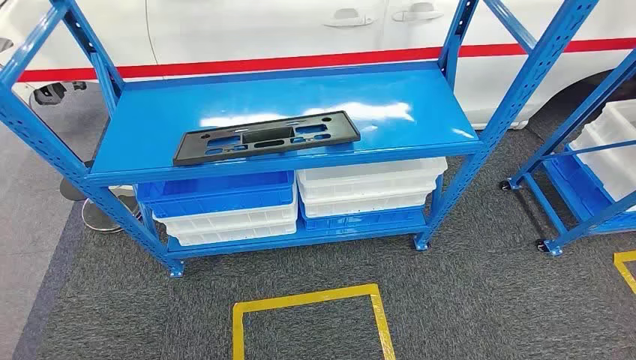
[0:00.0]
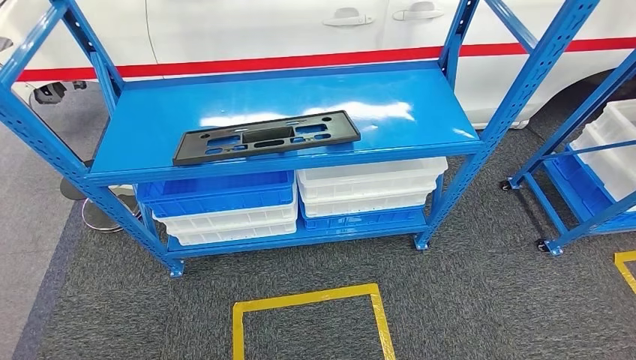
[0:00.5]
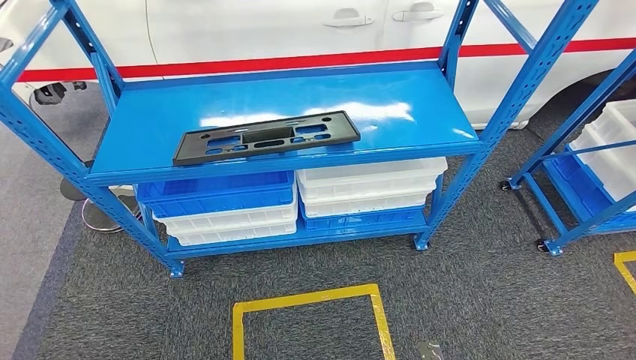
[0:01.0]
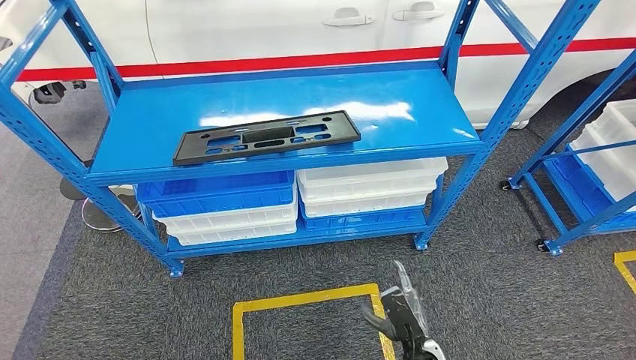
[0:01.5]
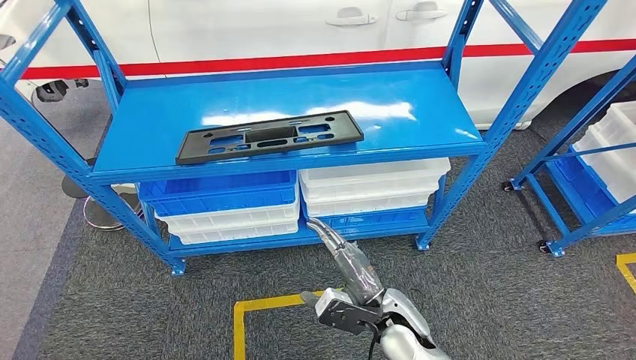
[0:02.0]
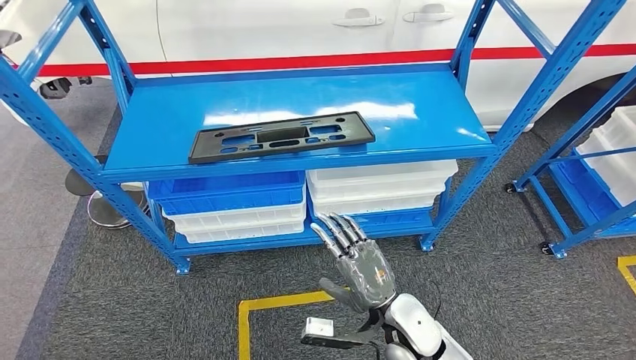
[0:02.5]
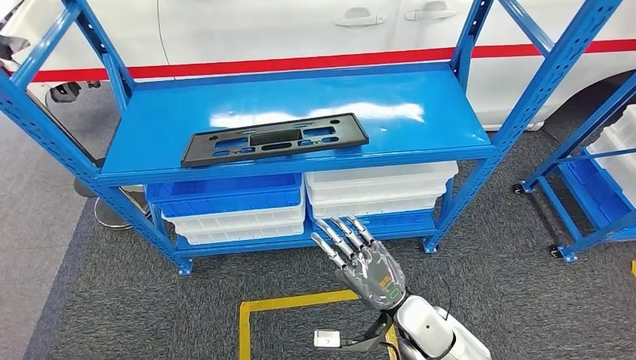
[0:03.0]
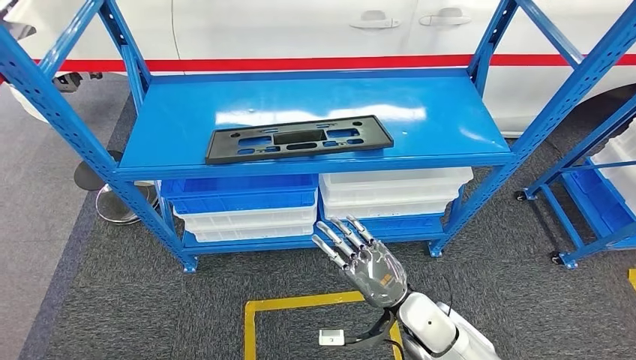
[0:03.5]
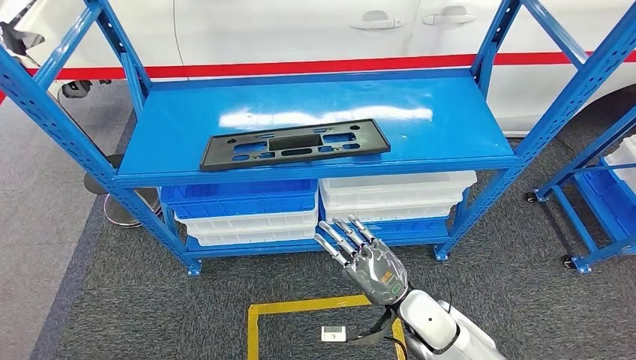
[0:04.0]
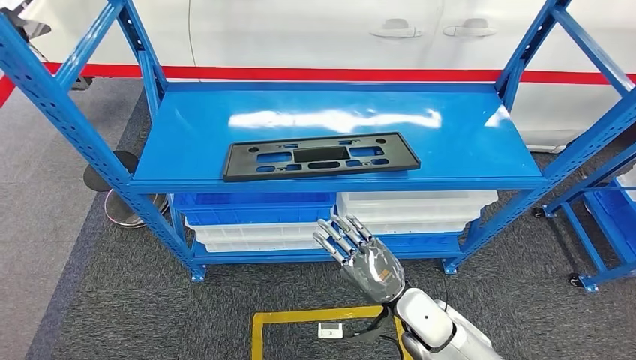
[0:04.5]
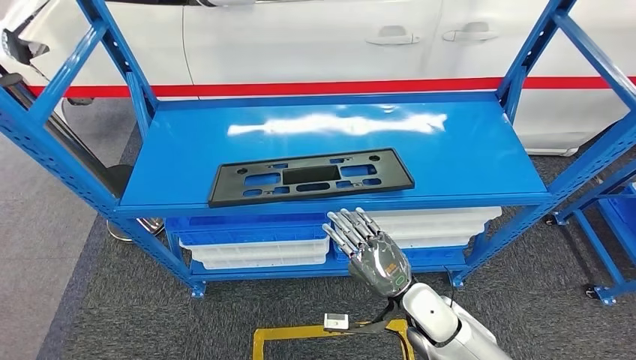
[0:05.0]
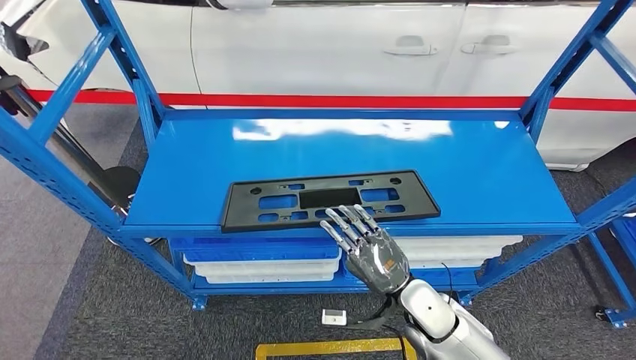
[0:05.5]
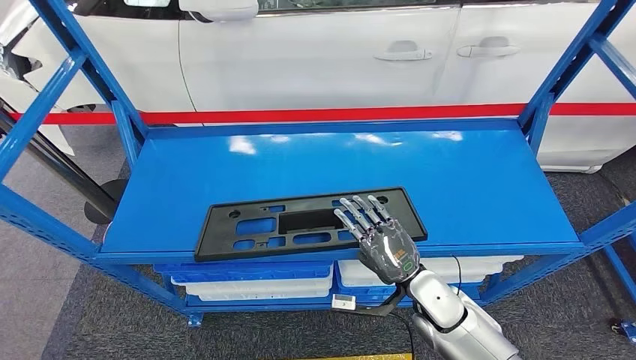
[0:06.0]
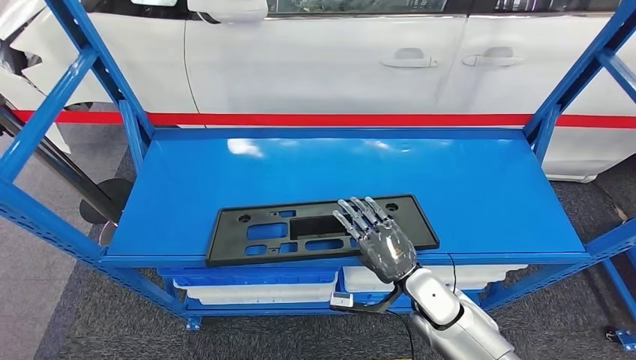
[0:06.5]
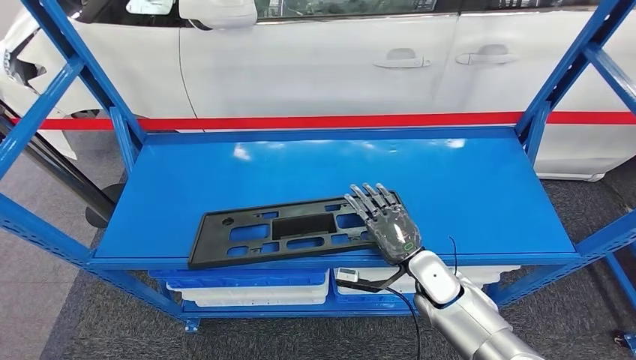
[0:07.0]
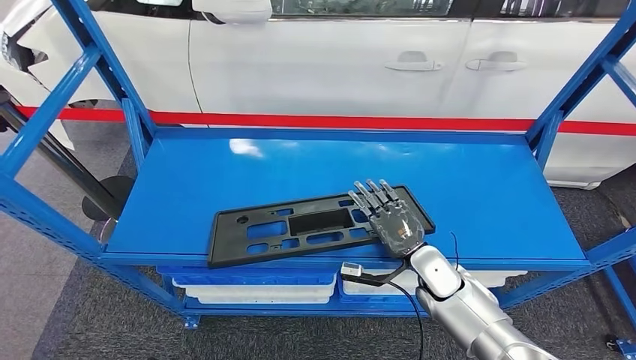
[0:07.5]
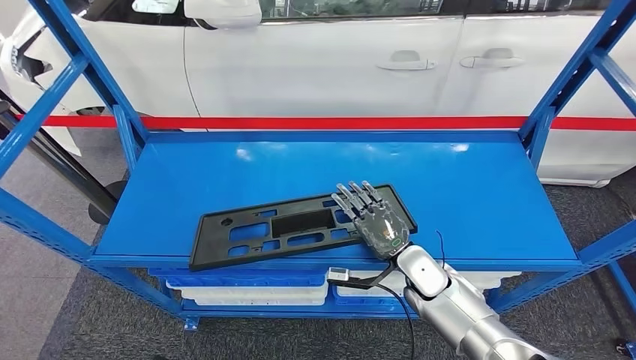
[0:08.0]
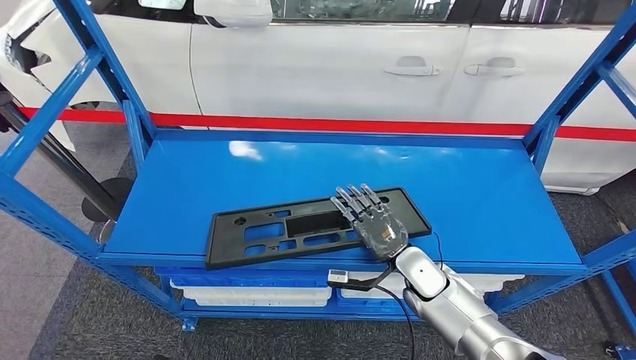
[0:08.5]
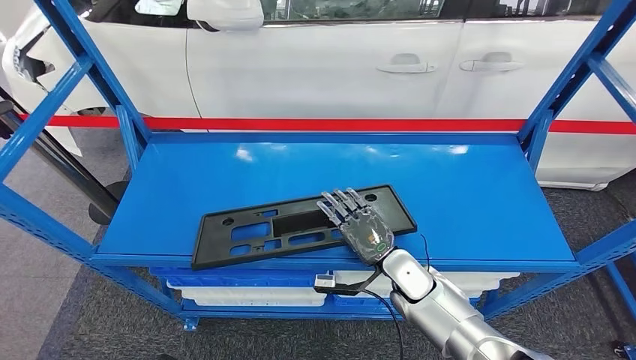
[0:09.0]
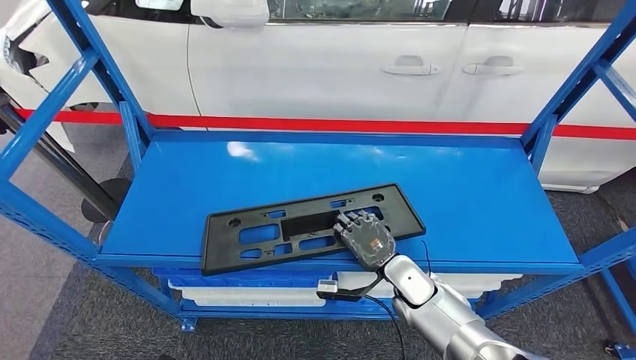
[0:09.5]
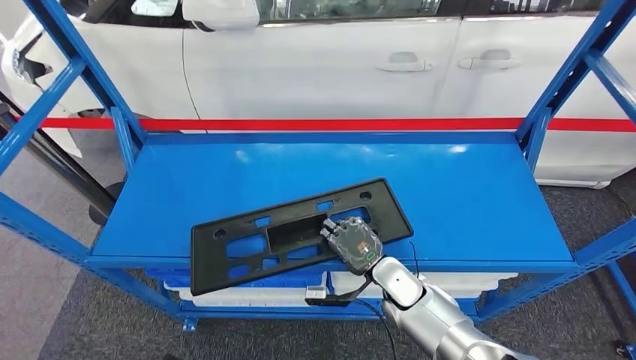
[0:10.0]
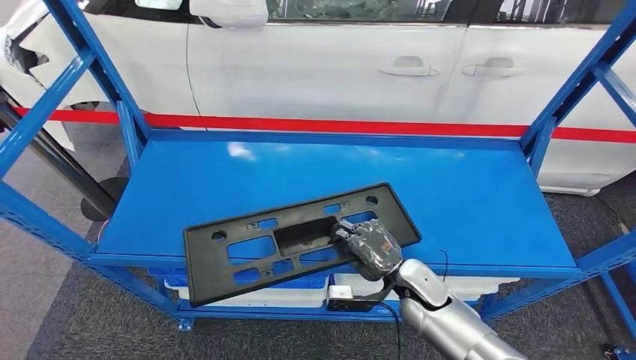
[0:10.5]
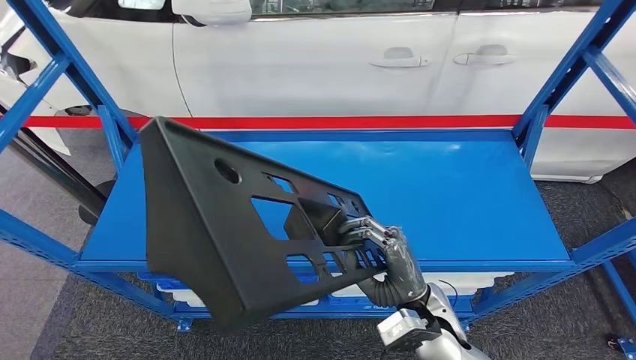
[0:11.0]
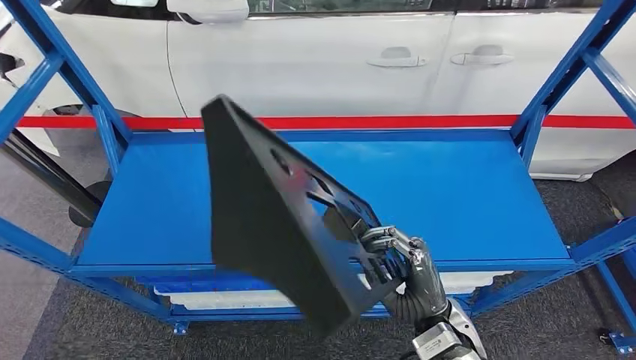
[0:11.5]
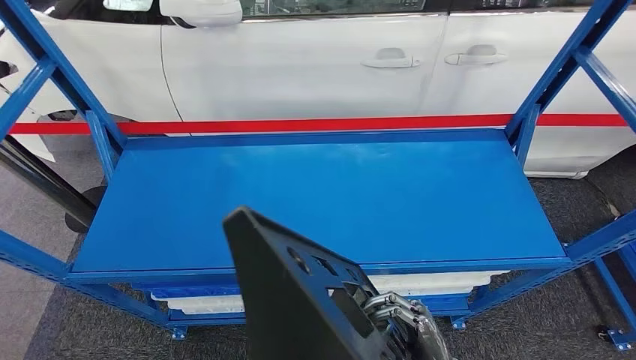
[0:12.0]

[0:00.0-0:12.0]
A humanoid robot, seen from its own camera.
Step, 0:00.0 to 0:11.5: Pick up the large material from the shelf.
0:08.0 to 0:10.0: There are only small adjustments of the hands.

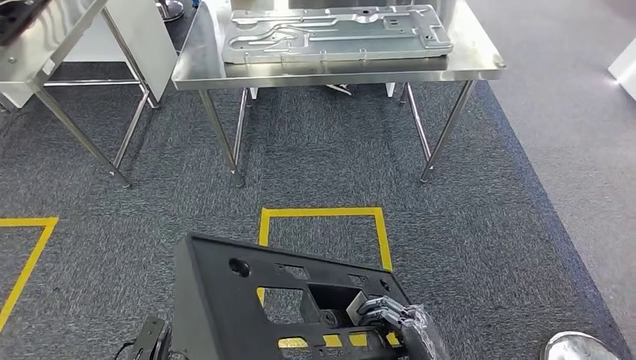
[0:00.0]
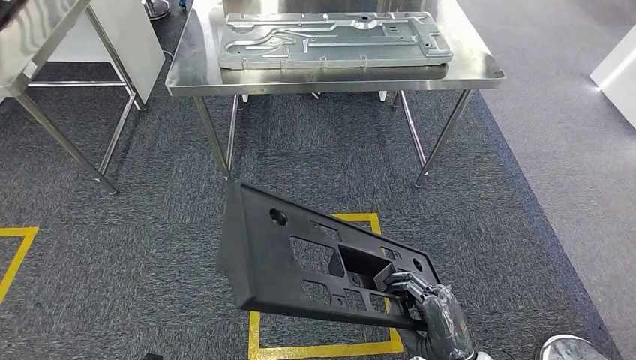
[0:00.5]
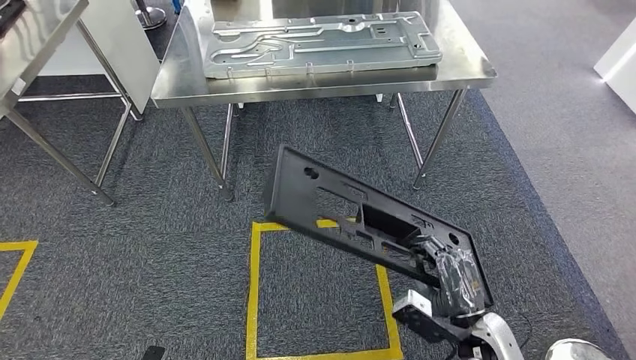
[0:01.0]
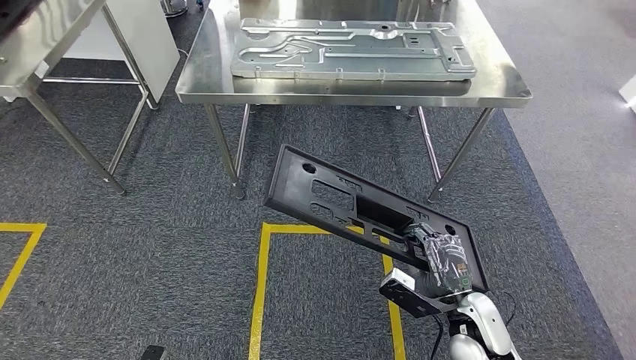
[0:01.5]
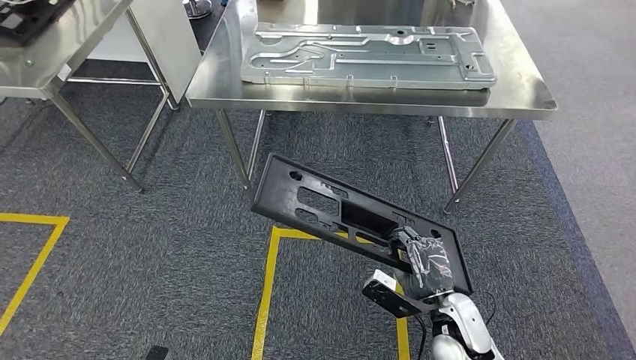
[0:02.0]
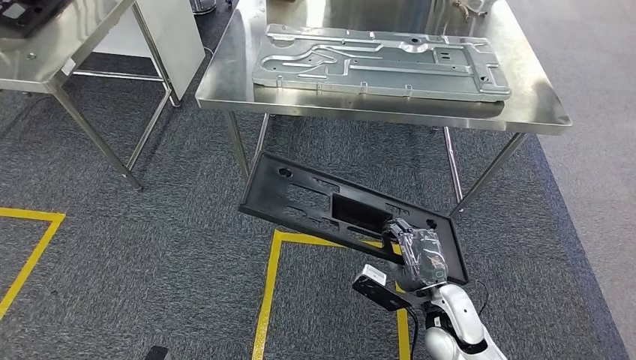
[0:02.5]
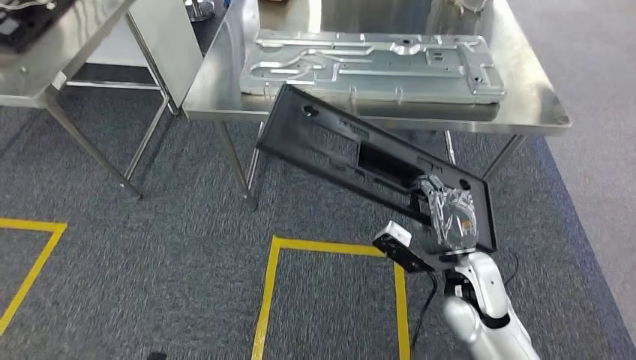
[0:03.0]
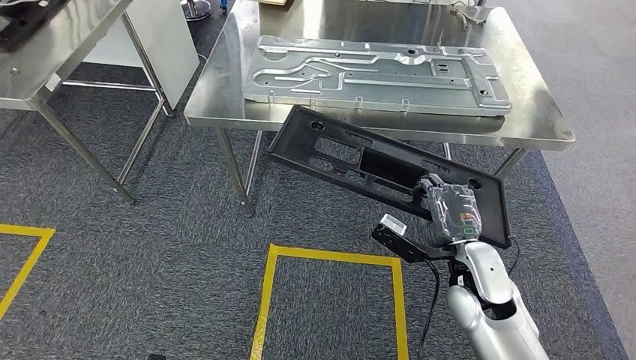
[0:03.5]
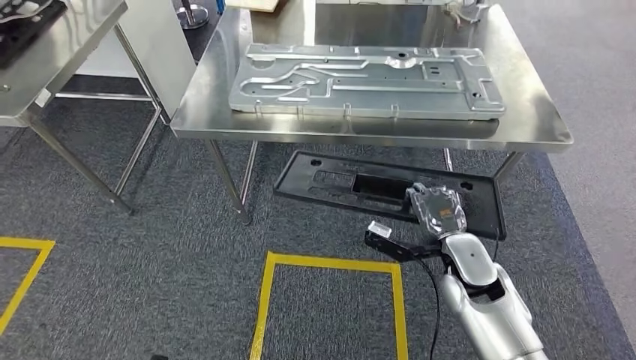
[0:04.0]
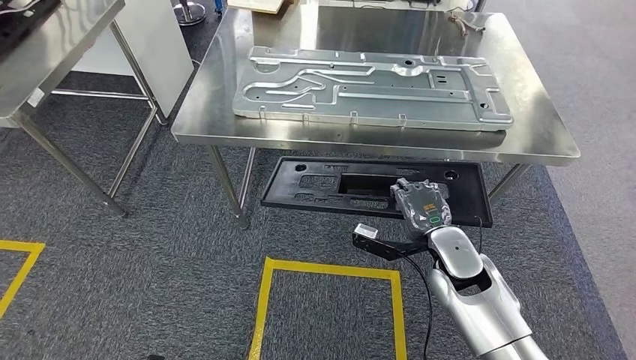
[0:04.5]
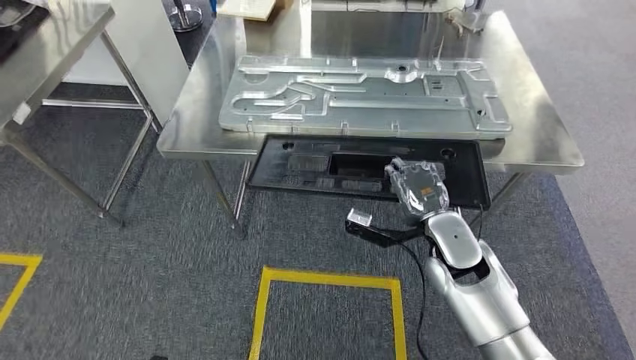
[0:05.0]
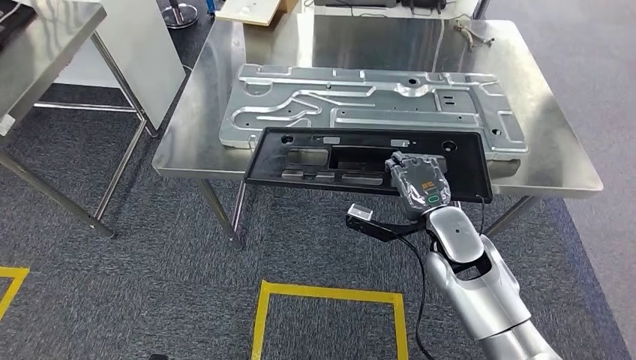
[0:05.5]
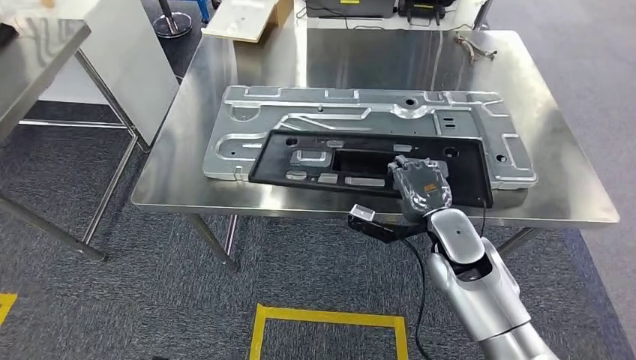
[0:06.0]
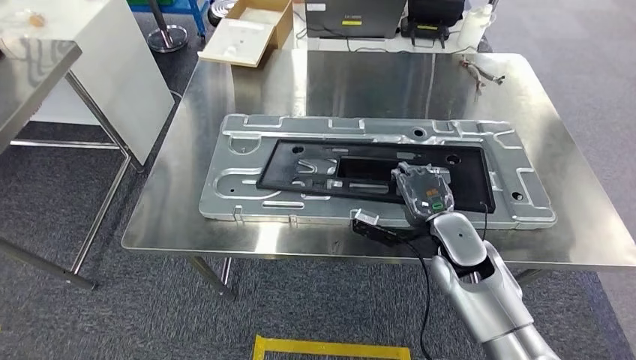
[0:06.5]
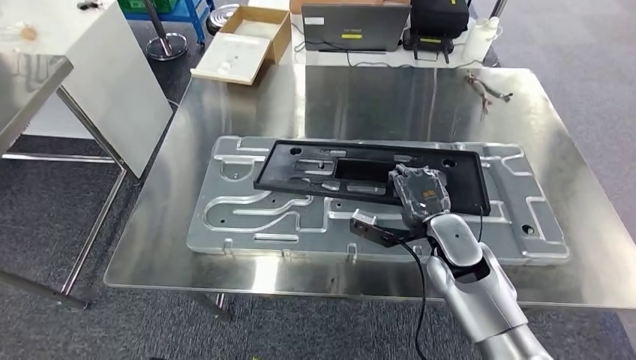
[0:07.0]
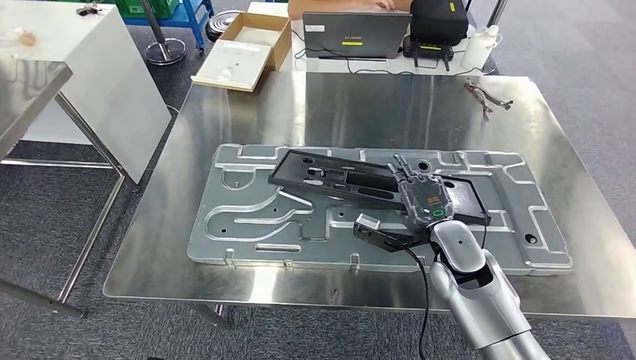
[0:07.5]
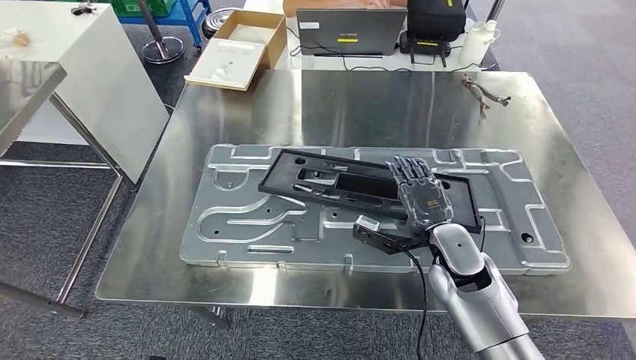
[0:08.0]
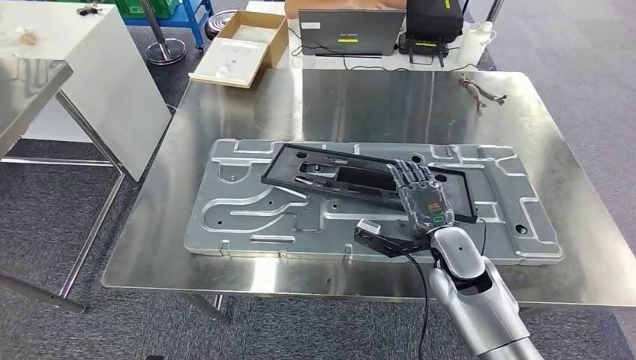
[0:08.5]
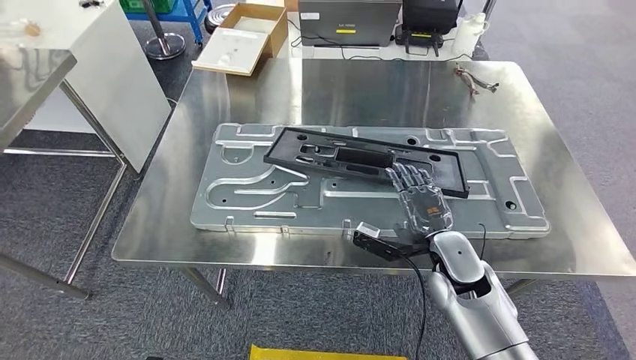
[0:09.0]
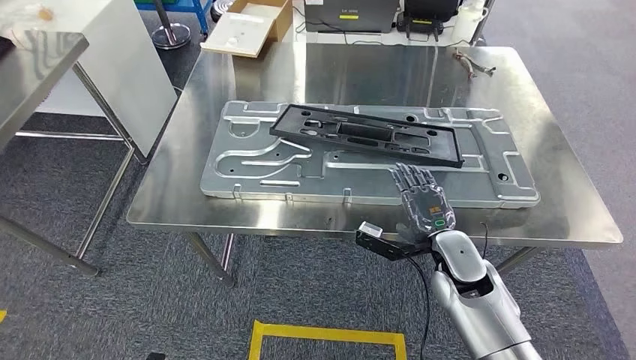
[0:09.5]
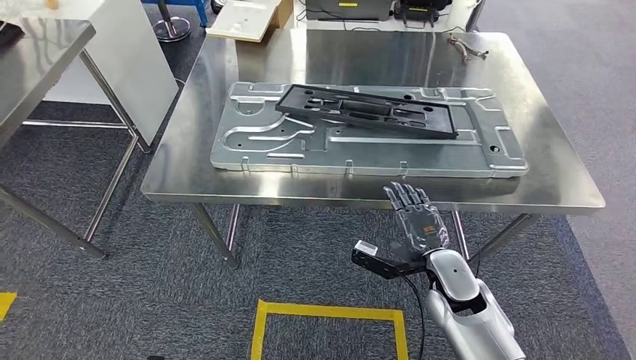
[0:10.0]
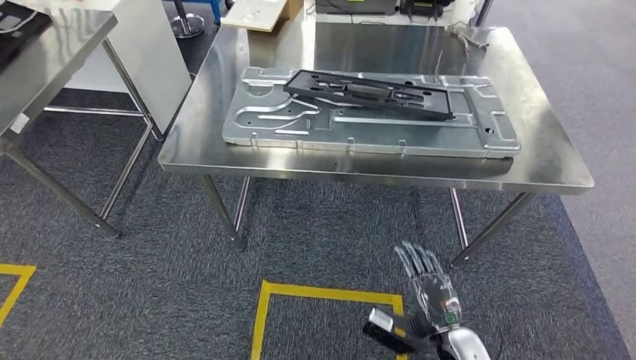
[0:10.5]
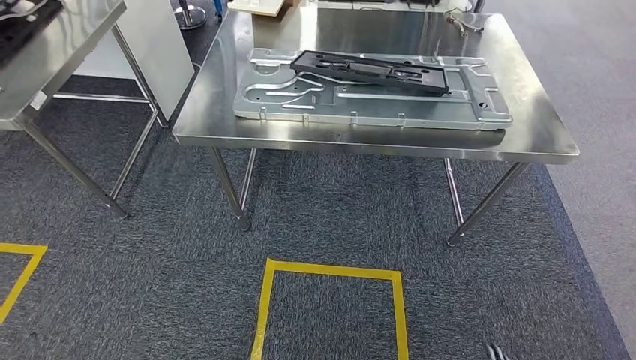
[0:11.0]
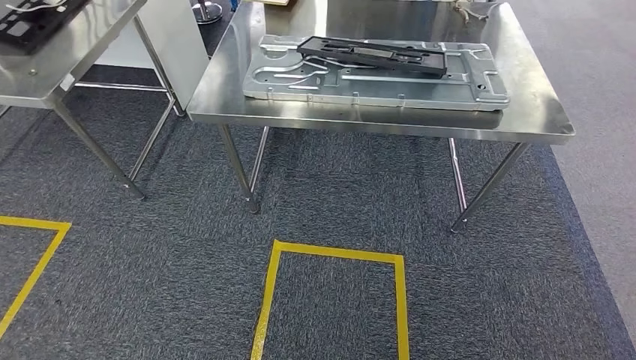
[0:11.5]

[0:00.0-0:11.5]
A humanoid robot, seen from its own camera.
Step, 0:03.5 to 0:10.0: Insert the large material into the corresponding slot on the workbench.
